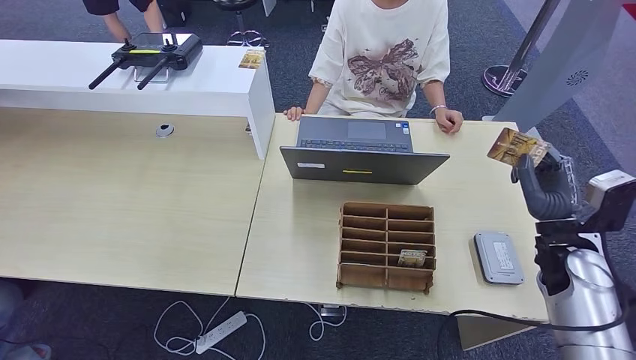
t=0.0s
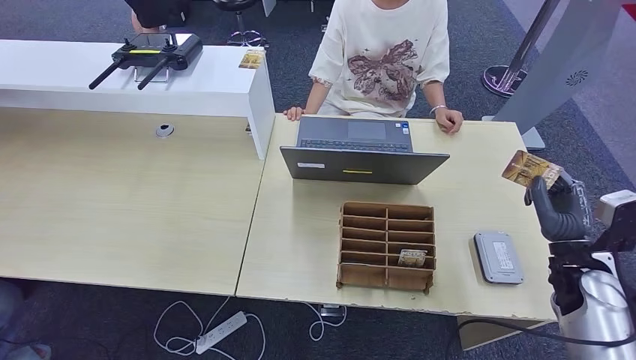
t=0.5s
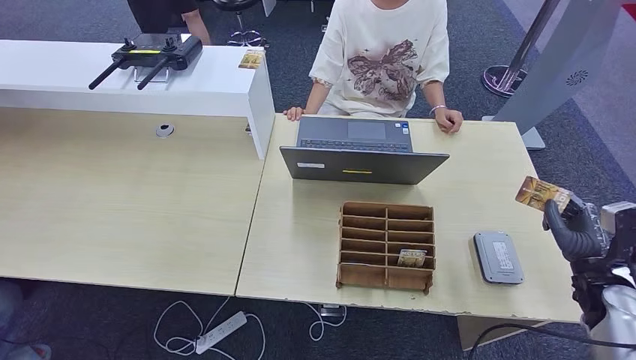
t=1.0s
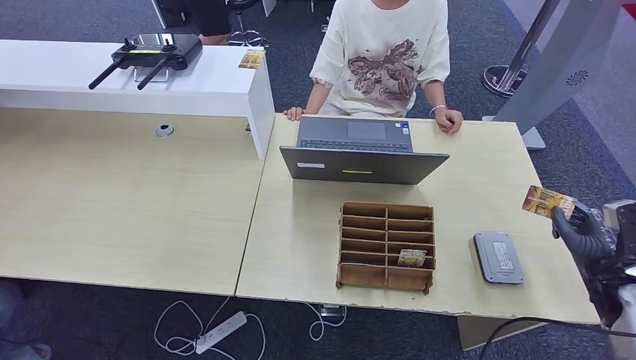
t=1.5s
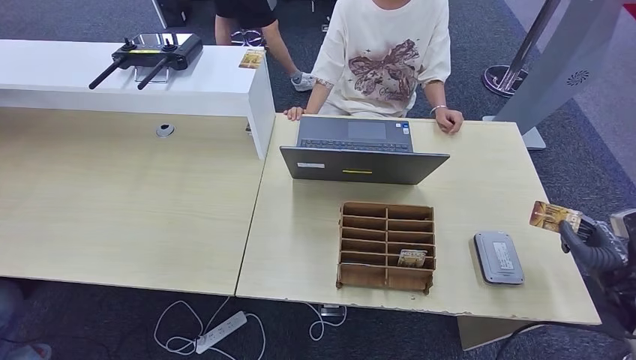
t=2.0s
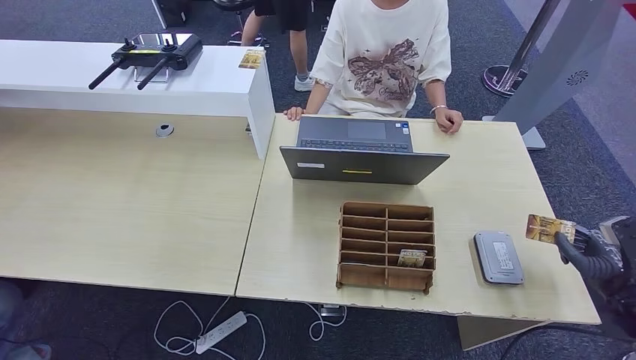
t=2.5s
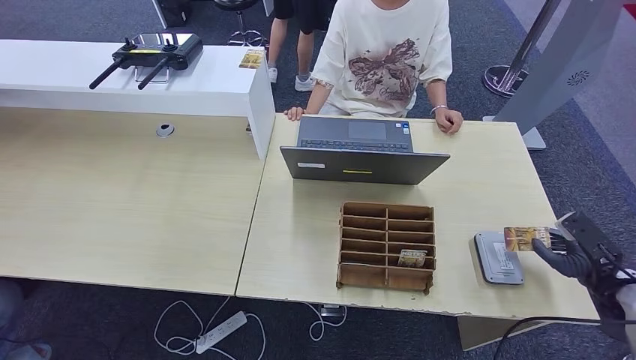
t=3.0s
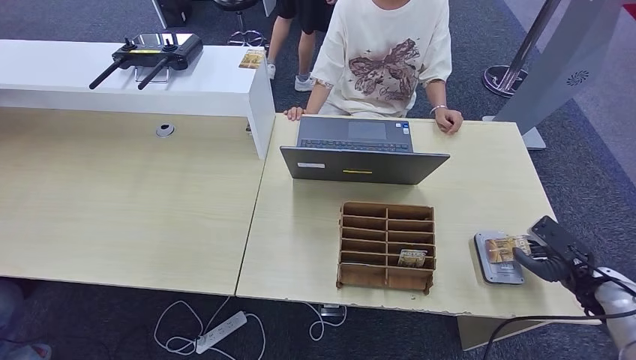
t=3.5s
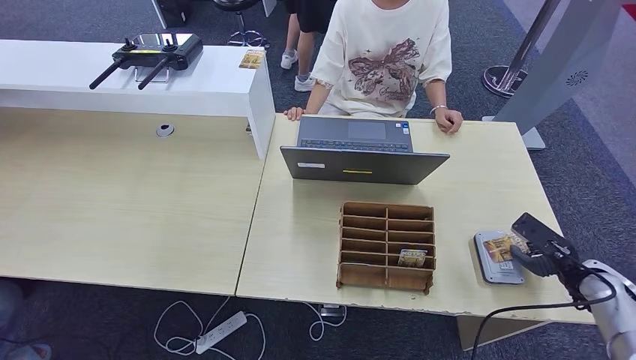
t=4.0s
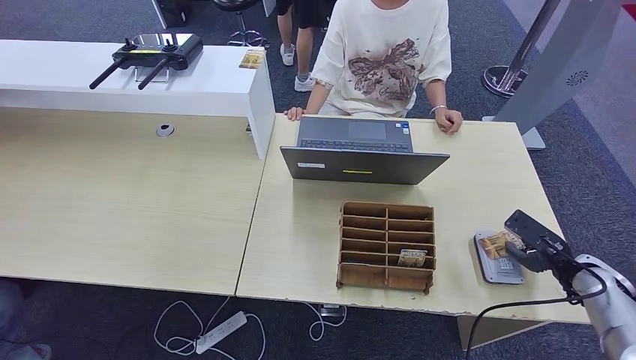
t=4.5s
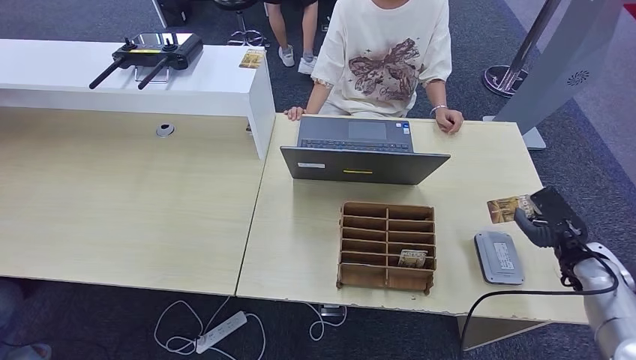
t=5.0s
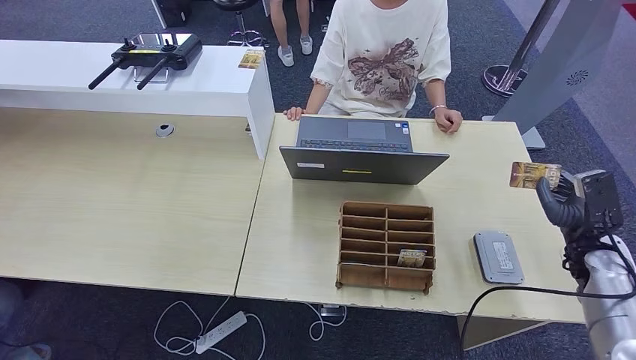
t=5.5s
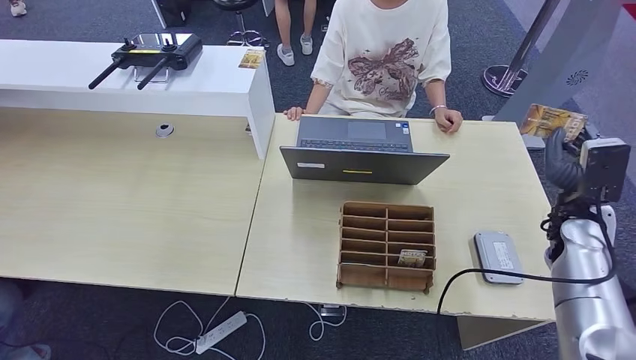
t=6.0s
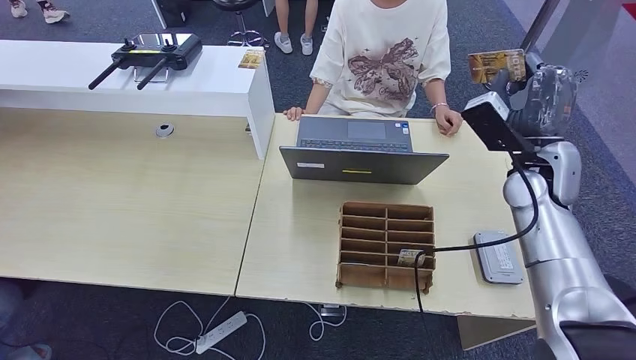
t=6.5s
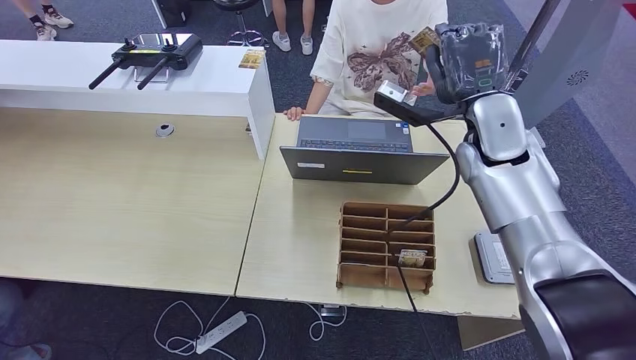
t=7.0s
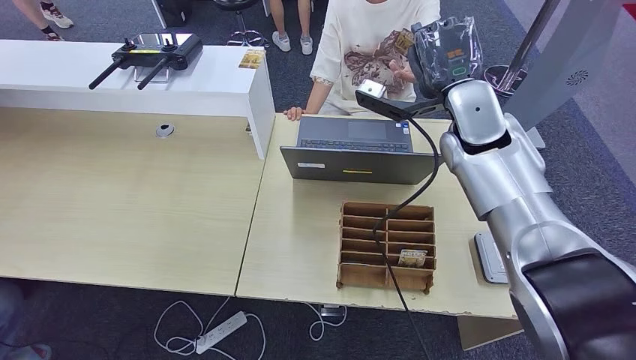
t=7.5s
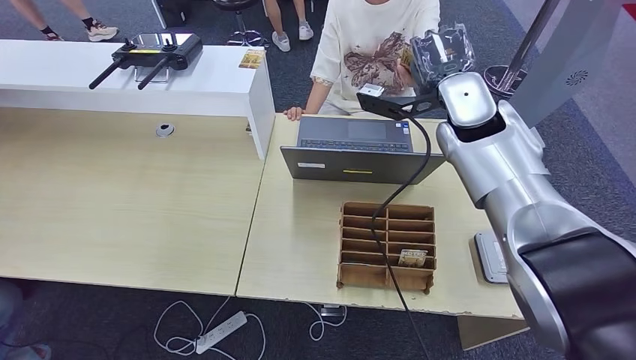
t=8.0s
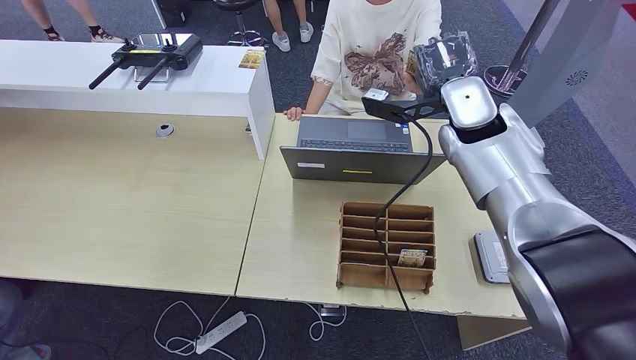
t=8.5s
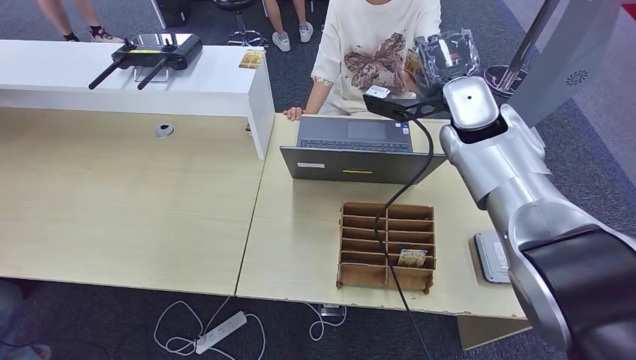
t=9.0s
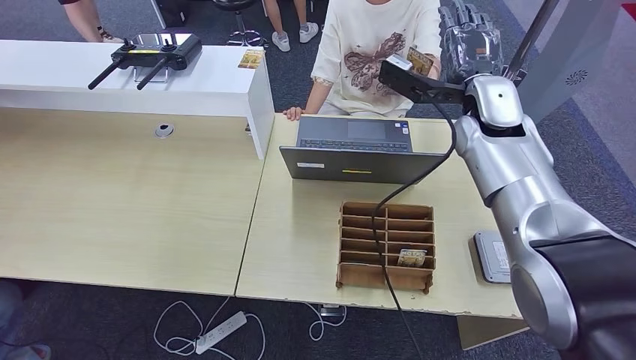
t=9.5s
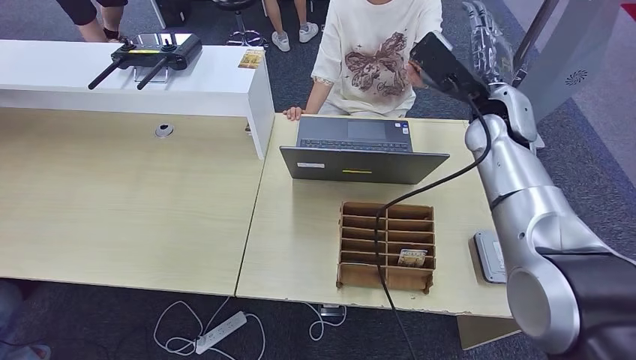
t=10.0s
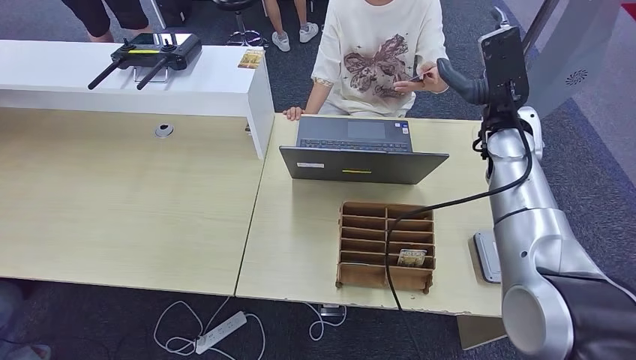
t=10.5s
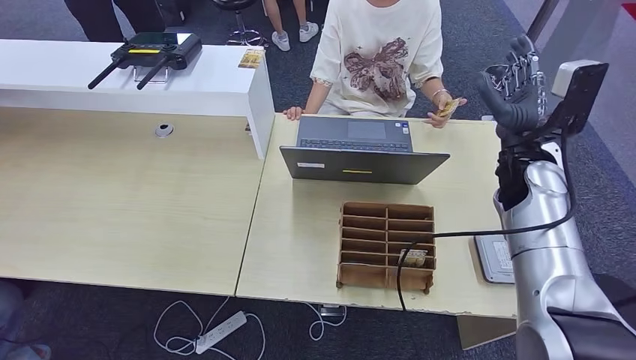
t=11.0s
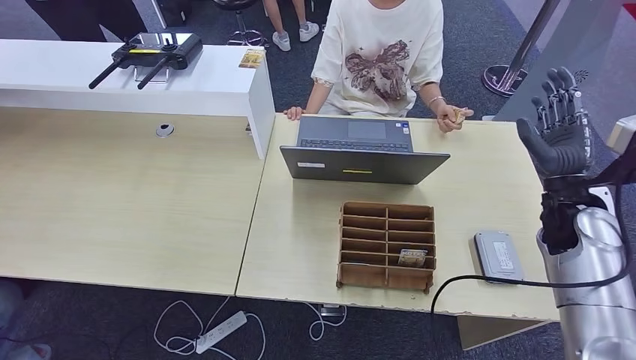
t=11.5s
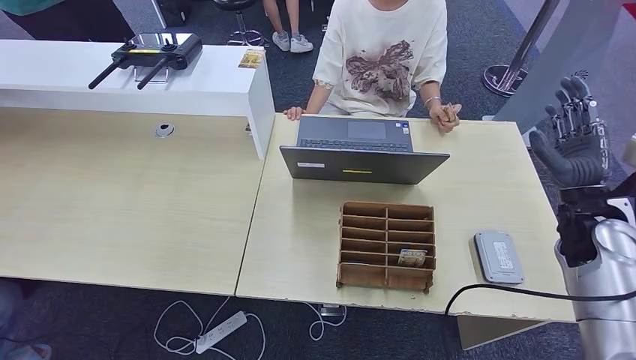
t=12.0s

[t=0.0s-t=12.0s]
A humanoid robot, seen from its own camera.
Step, t=0.0s to t=3.5s: Place the ID card on the card reader.
Step, t=4.0s to t=9.0s: Hand the ID card to the person.
t=0.0s to t=2.0s: The right hand heads to the right and downward, covering approximately 15 cm.
t=4.0s to t=6.0s: The right hand moves upward, to the left and forward, some 15 cm.
t=6.0s to t=8.0s: The right hand heads to the left, upward and forward, covering about 30 cm.
t=8.0s to t=10.0s: The right hand moves to the right, roughly 5 cm.
t=10.0s to t=12.0s: The right hand is displaced to the right, backward and downward by approximately 20 cm.

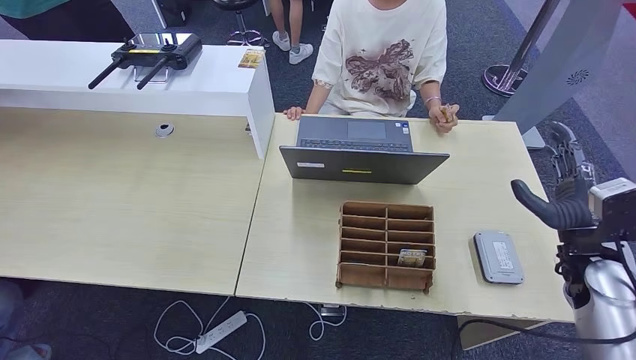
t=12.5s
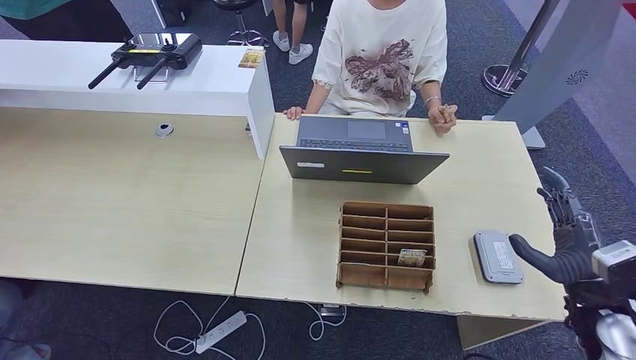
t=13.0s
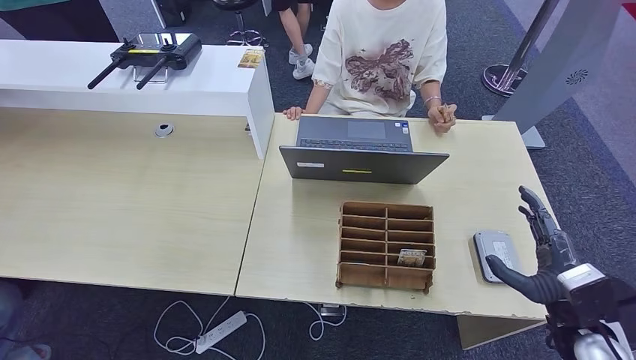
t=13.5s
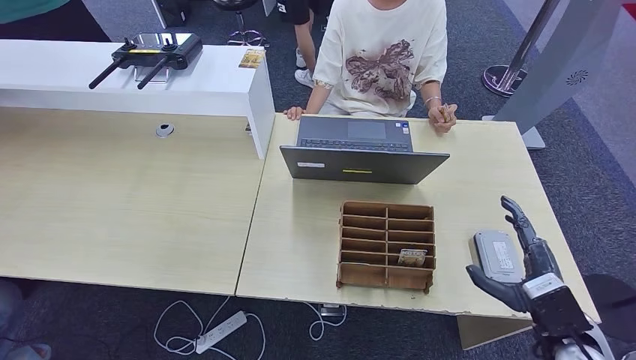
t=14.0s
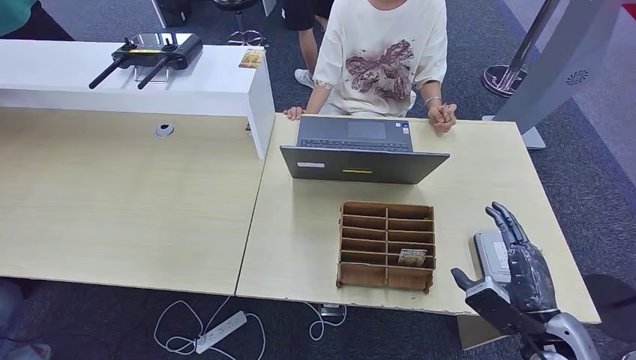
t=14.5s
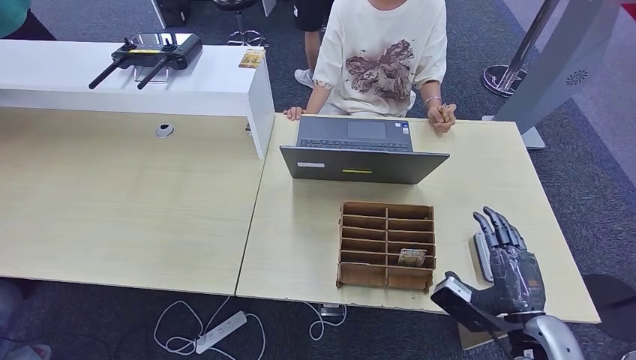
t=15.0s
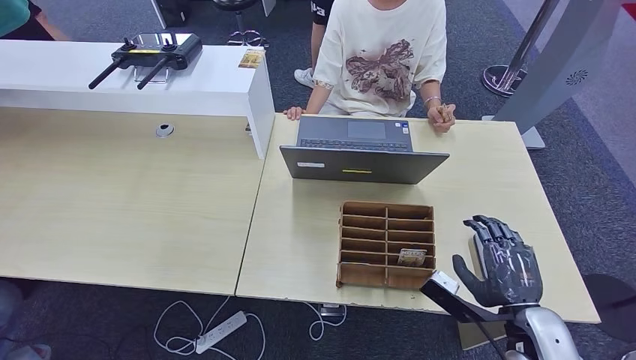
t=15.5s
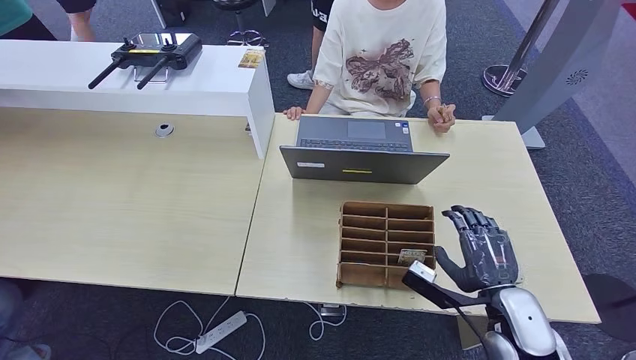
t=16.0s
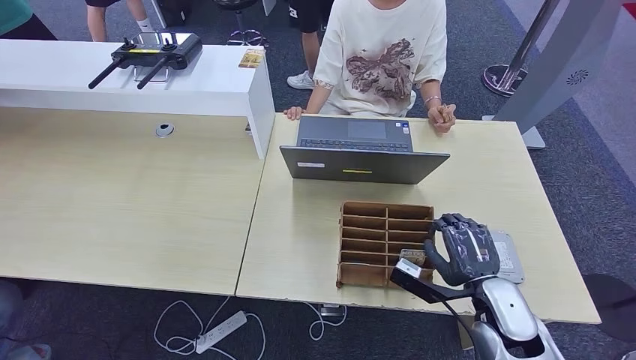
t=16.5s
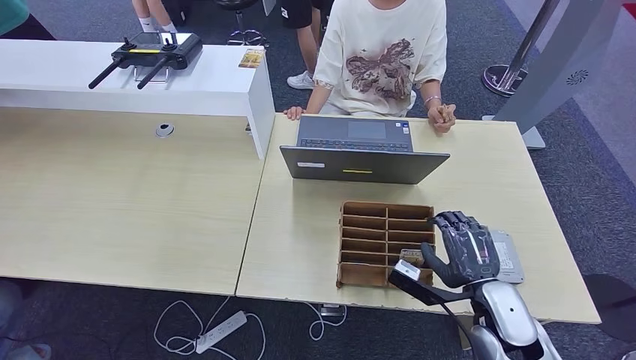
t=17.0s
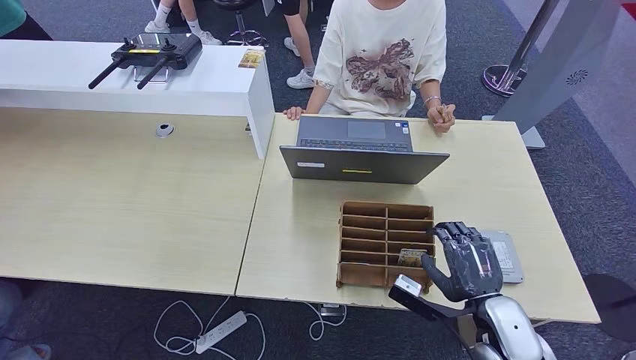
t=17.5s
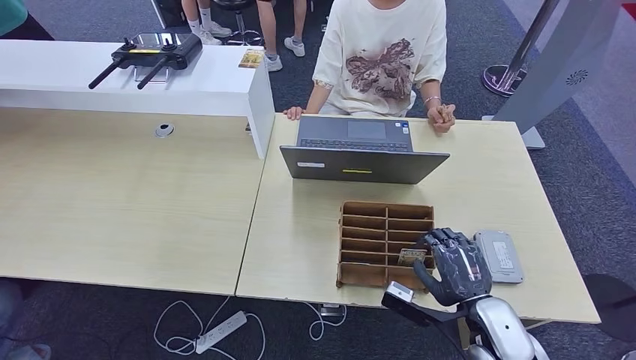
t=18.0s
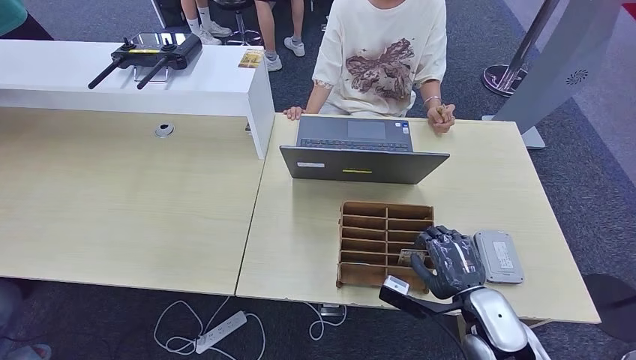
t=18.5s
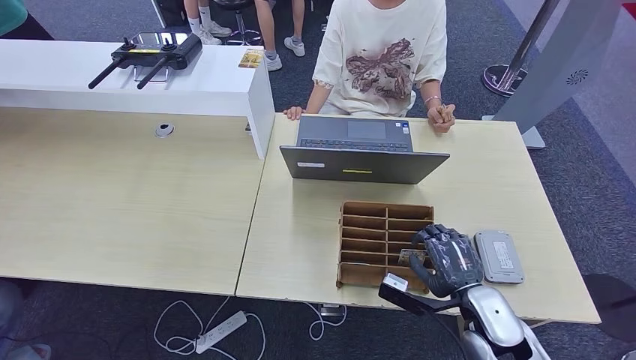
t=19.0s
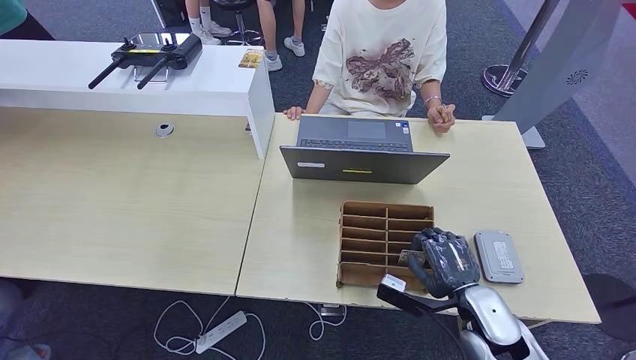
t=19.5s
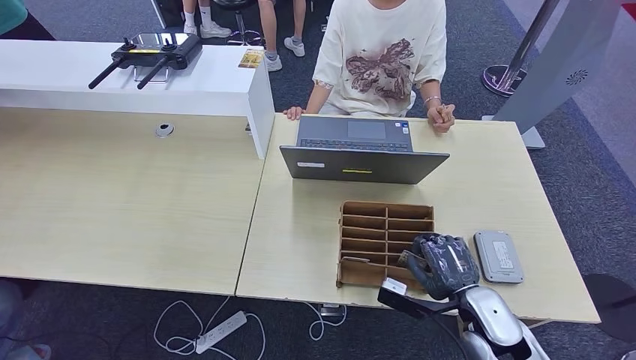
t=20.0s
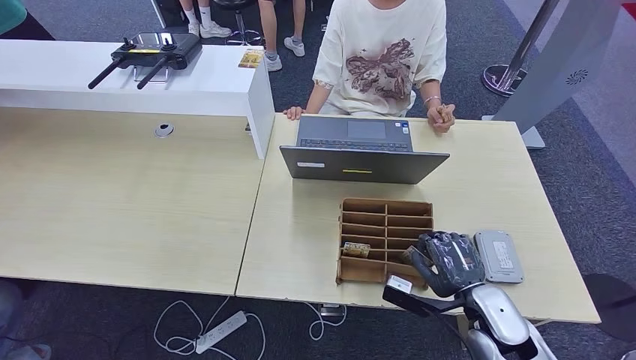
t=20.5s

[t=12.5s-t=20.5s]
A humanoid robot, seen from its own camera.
t=12.5s to t=14.5s: The right hand shifts about 15 cm backward, to the left and downward.
t=14.5s to t=16.5s: The right hand heads to the left, covering roughly 5 cm.
t=16.5s to t=18.5s: The hands make only small movements.
t=18.5s to t=20.5s: Neither hand changes place.
